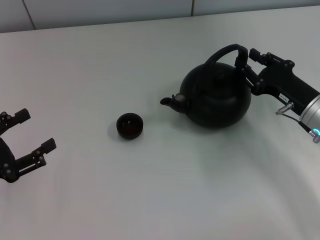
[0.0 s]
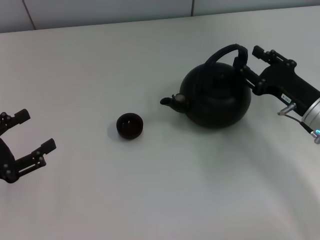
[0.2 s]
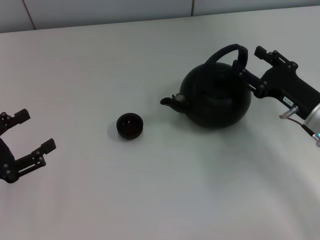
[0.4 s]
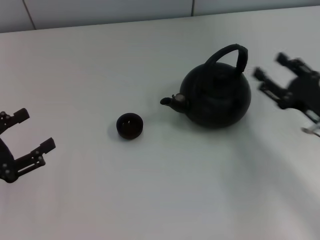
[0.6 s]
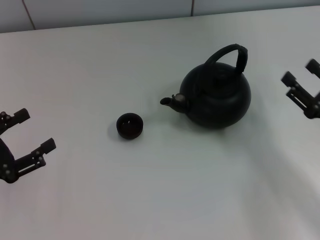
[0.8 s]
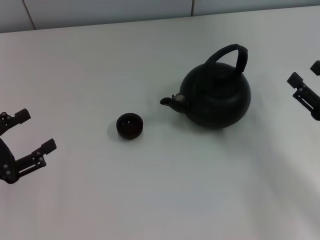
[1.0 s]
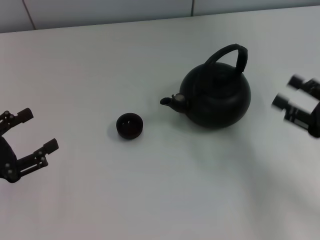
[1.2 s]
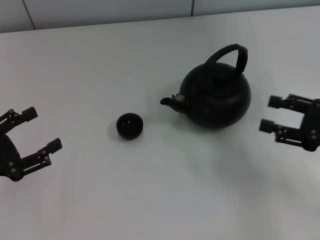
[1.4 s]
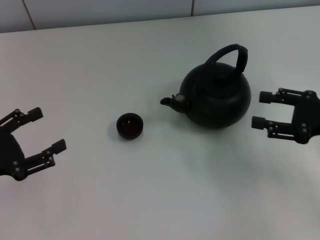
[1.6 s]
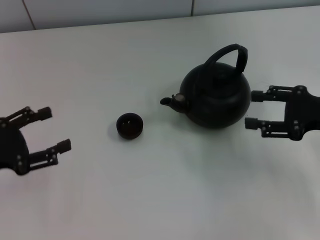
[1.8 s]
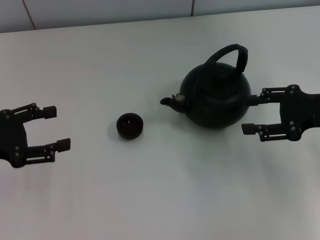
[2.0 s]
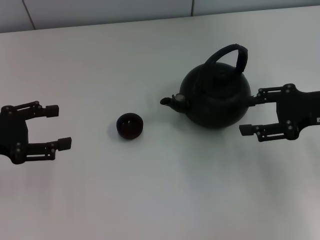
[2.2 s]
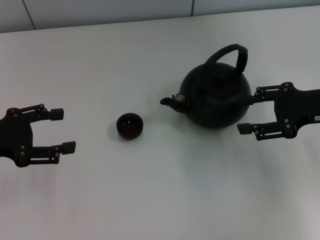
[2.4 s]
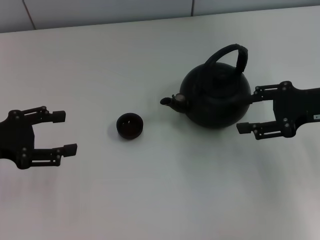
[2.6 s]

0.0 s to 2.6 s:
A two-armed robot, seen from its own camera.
Task of the whole recording: Grasp the handle of the teapot with one hand and pour tea into the teacup.
0.0 to 1.2 s: The right gripper is displaced backward and to the right by approximately 10 cm, and opens up.
1.2 to 2.6 s: The right gripper travels forward and upward by some 10 cm, while the left gripper moves forward, some 5 cm.
